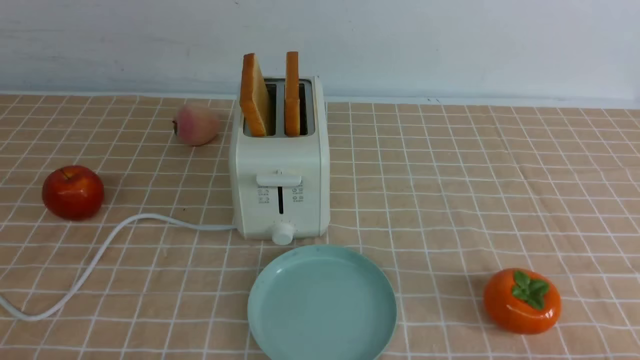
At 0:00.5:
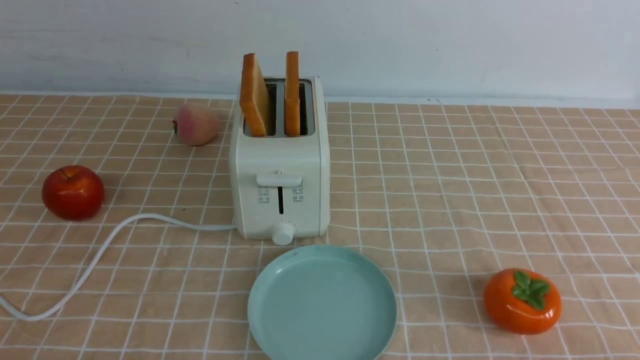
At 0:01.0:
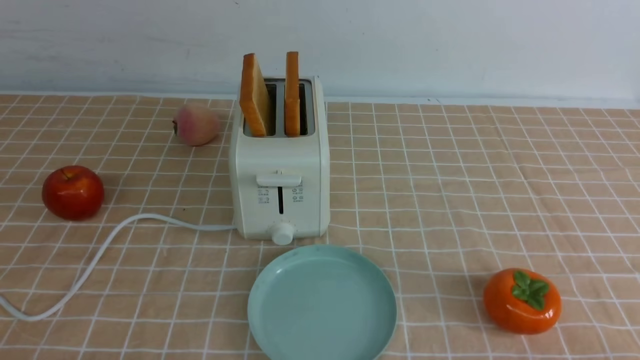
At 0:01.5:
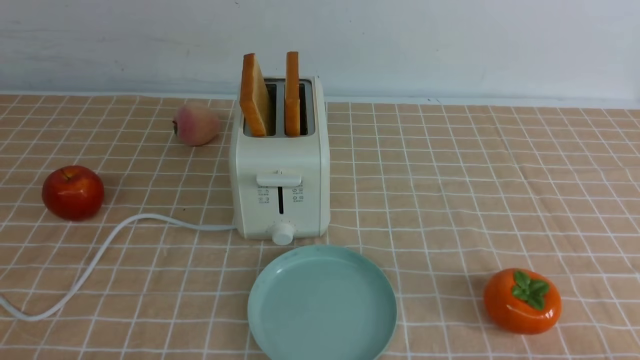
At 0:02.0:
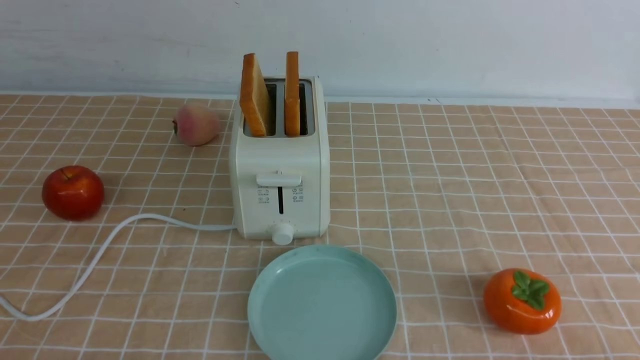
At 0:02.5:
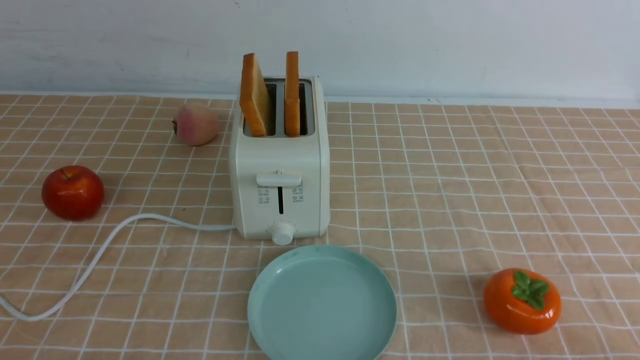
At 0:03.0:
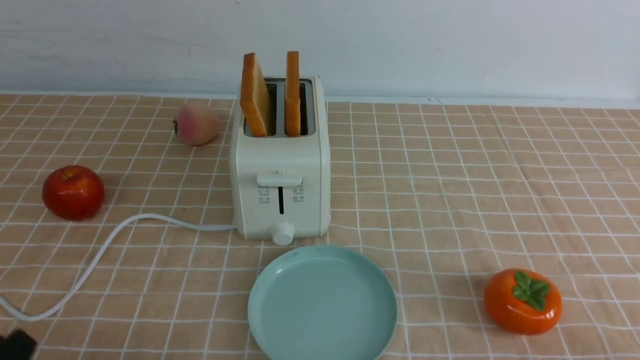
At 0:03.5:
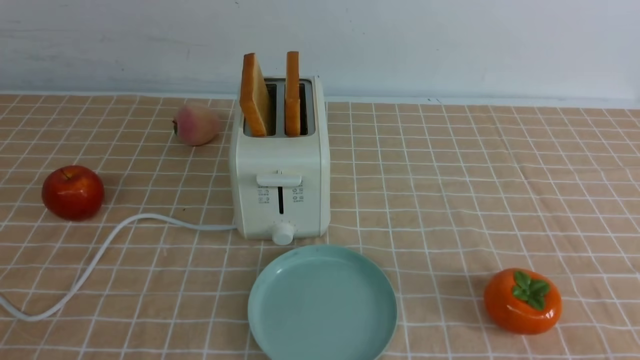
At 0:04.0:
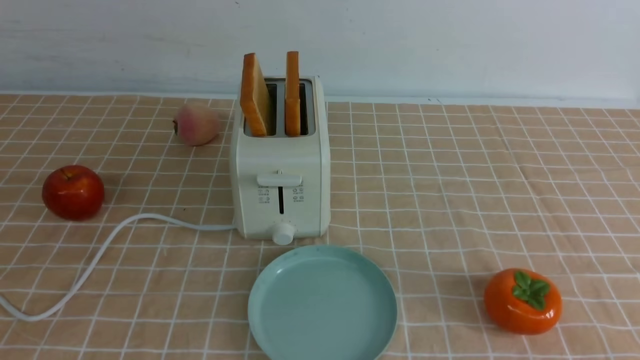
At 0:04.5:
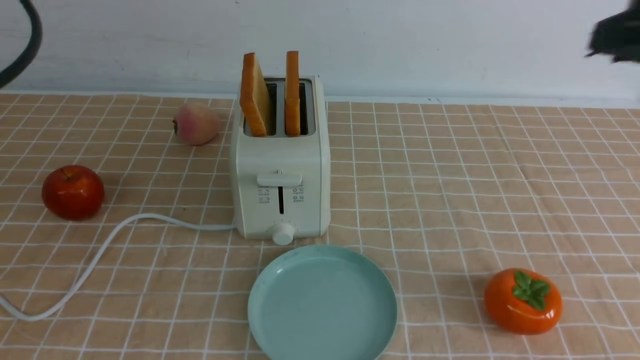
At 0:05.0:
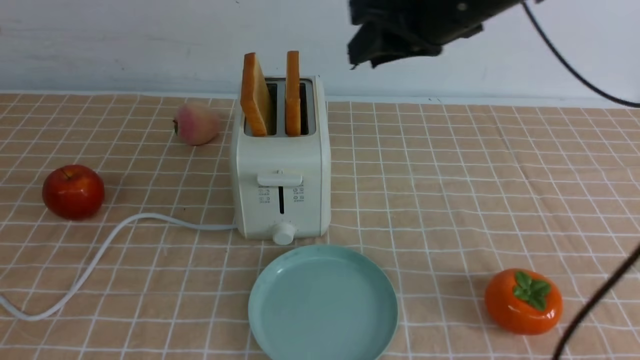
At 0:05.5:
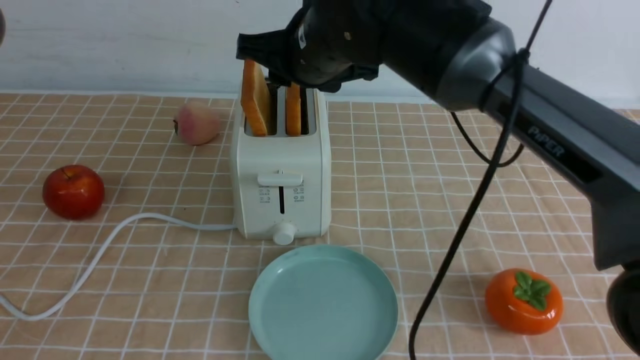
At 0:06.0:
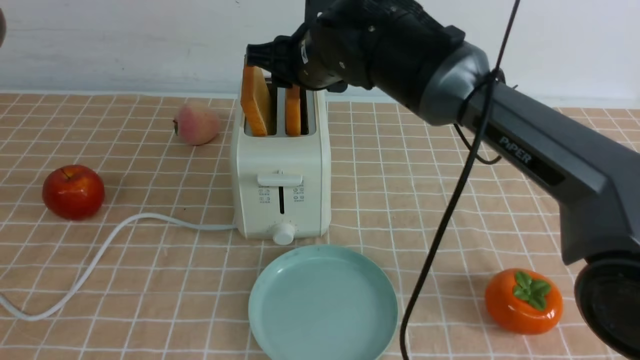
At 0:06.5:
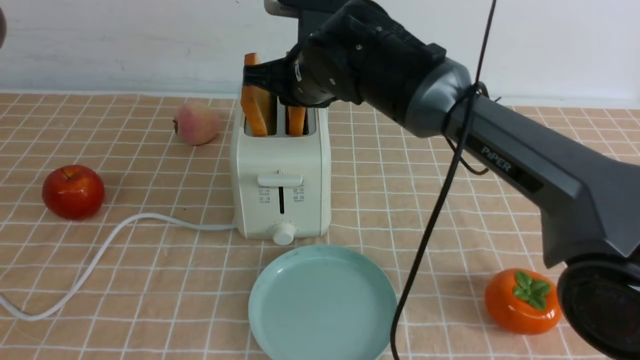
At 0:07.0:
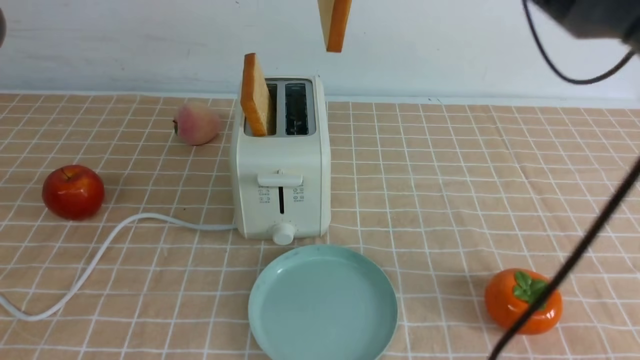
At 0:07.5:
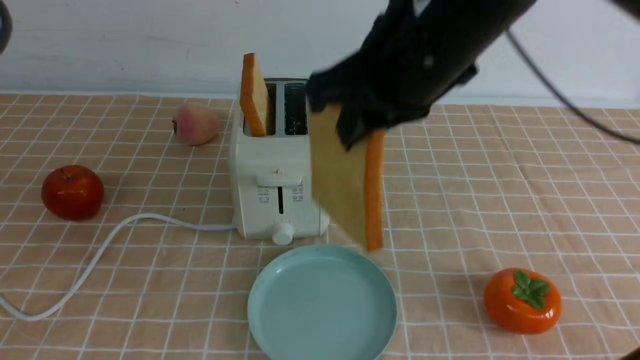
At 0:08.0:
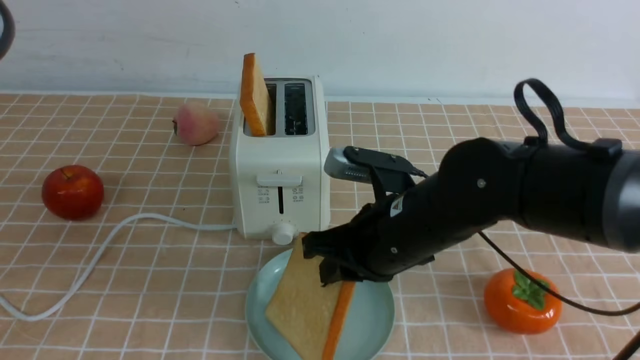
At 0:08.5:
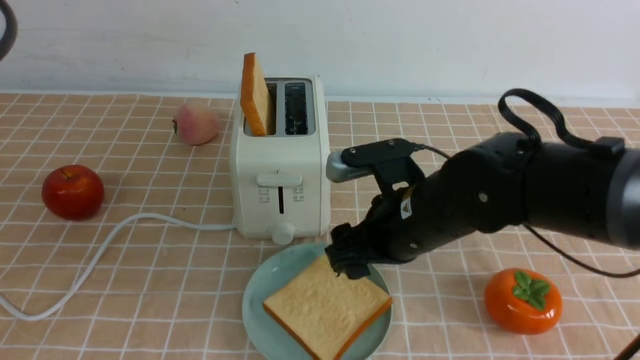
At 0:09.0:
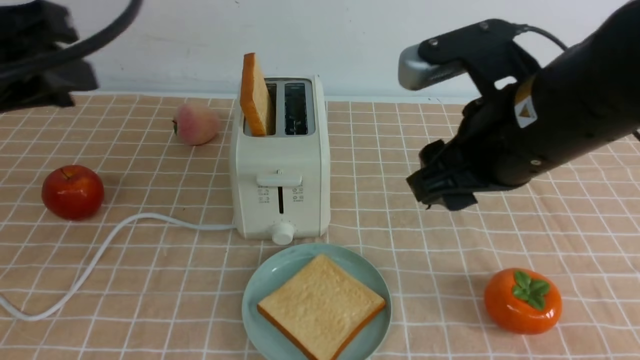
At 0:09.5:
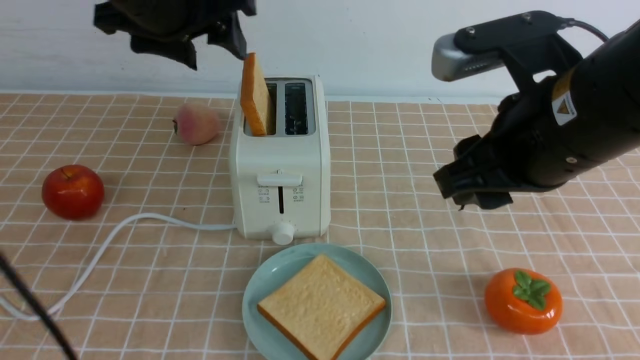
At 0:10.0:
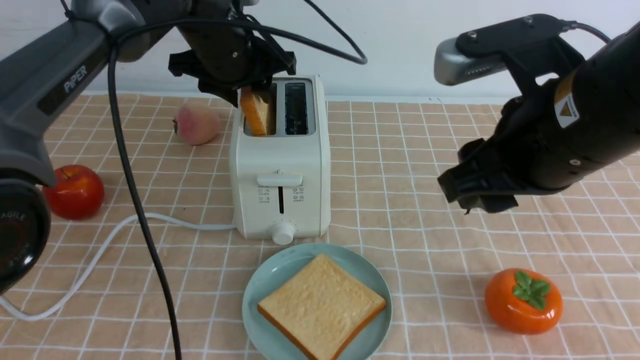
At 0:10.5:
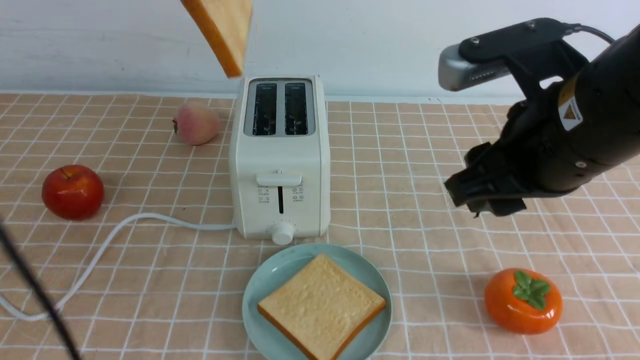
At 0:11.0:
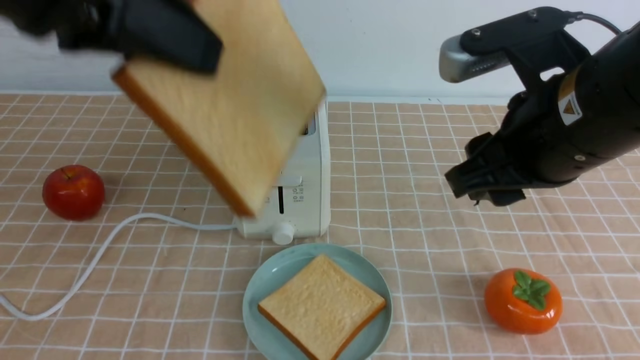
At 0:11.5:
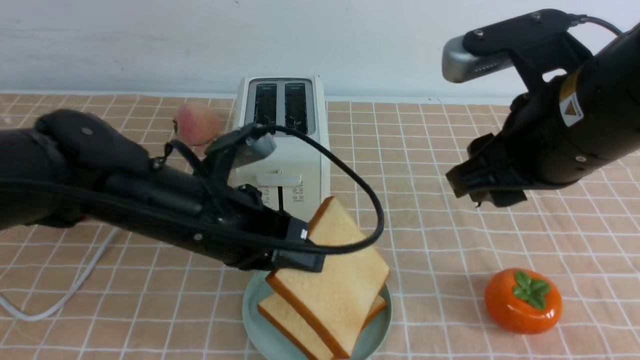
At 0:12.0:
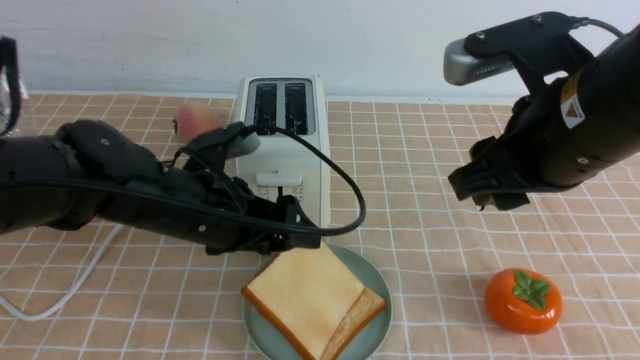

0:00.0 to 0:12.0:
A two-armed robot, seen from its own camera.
Task of the whole recording: take toasted bread from bread machine on light coffee tablecloth place on plate.
Step, 0:00.0 to 0:06.5: use the right arm to take out a slice of bread.
Step, 0:07.0 to 0:08.5: use the right arm to put a slice of bread into the plate.
Step, 0:09.0 to 0:10.0: use the left arm to take out a slice of bread.
0:04.0 to 0:06.0: The left gripper heads forward and downward, covering roughly 10 cm. Meanwhile the right gripper moves to the left, forward and downward, some 50 cm.
0:06.0 to 0:08.0: The right gripper travels backward, downward and to the right by approximately 15 cm, and closes its fingers.
0:08.0 to 0:10.0: The right gripper heads upward and to the right, covering roughly 15 cm, and opens up; the left gripper goes about 30 cm forward and to the right.
0:10.0 to 0:12.0: The left gripper shifts roughly 20 cm backward and downward, and closes and opens again.

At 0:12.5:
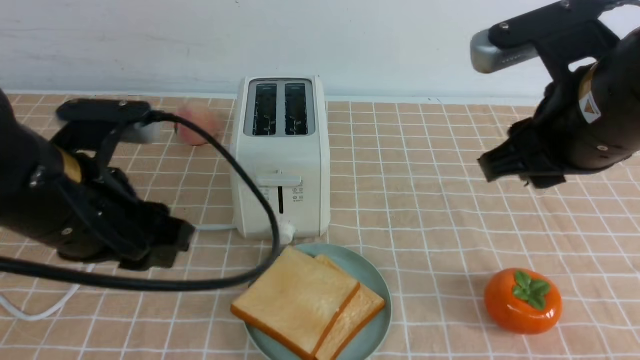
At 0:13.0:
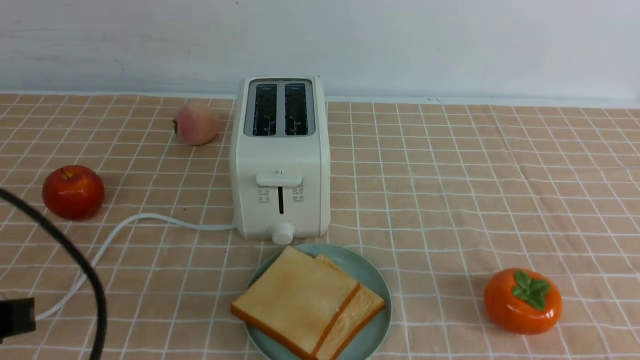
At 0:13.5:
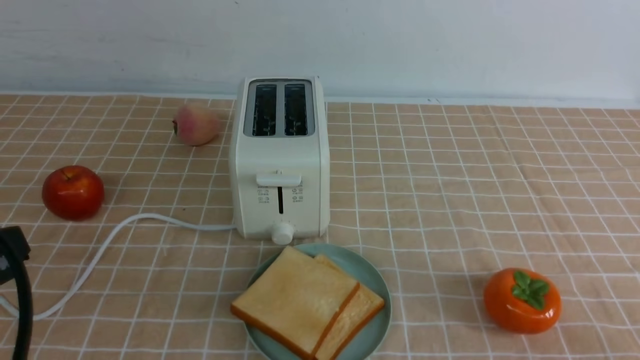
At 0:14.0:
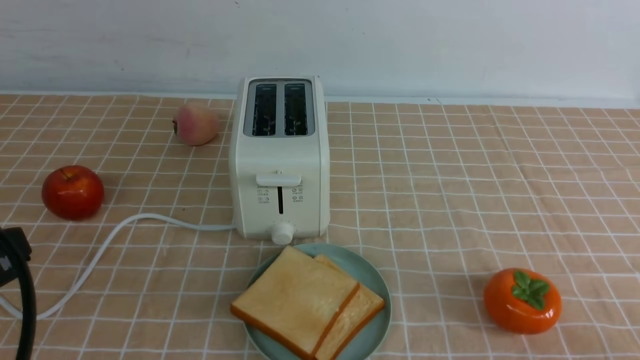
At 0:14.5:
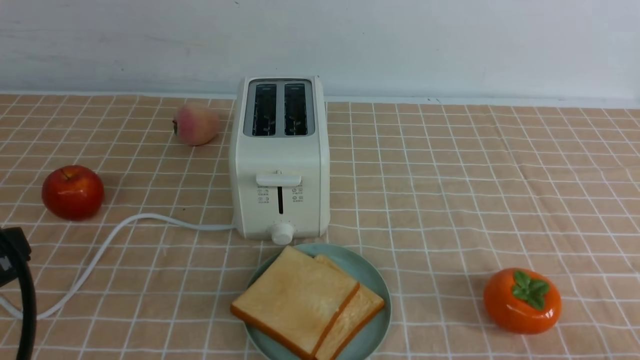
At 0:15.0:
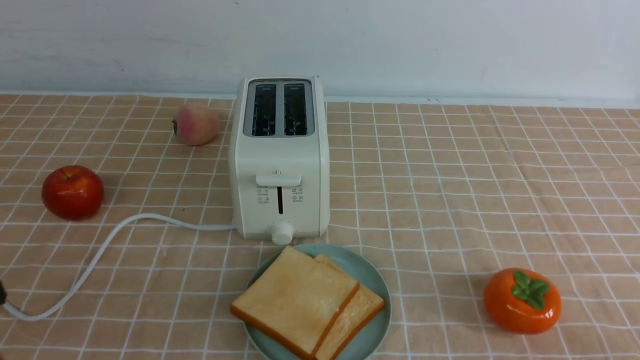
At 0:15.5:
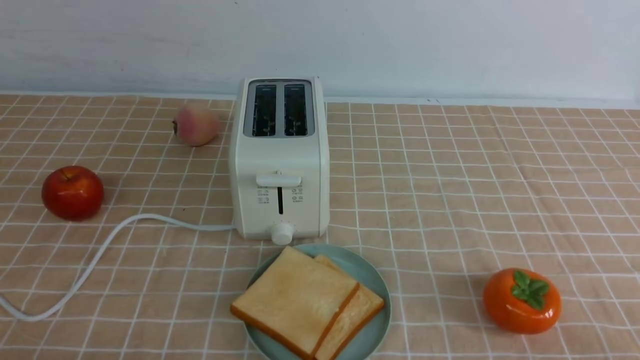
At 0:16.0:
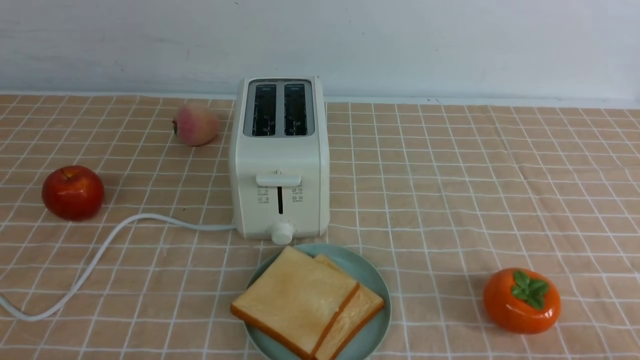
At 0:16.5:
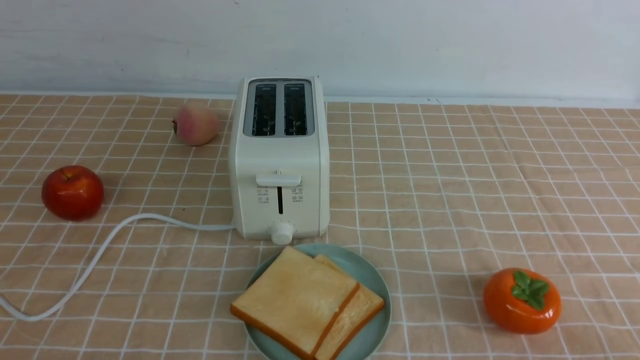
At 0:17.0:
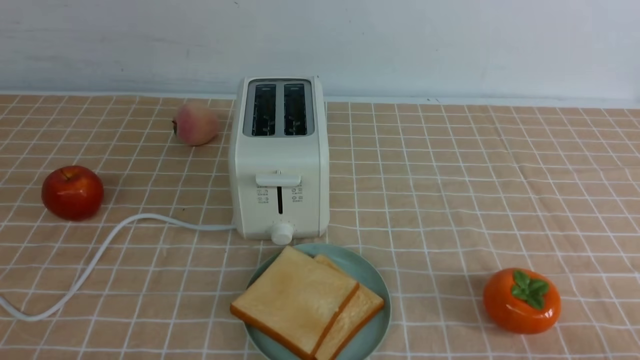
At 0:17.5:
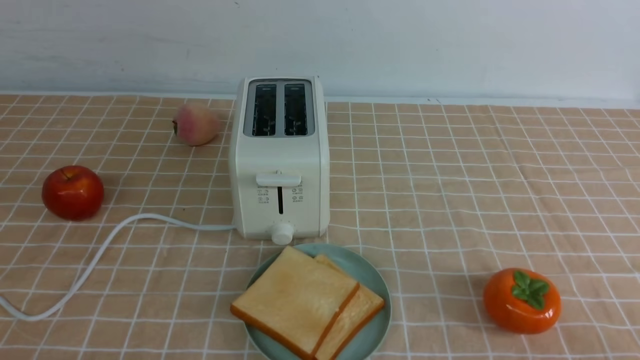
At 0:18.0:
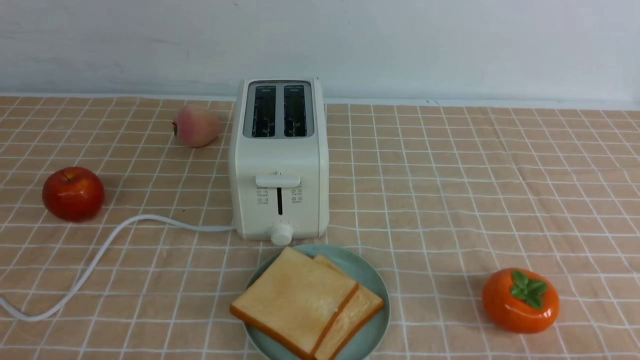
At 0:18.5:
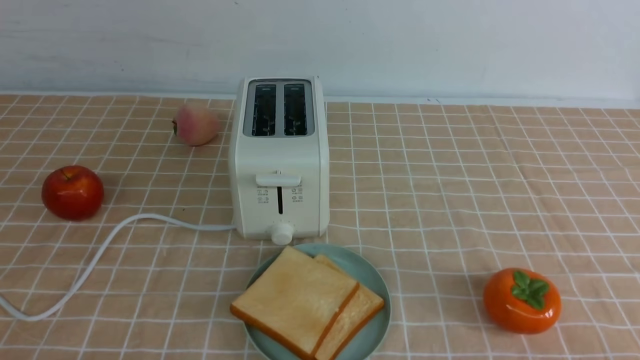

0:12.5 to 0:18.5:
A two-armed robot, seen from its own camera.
Task of the whole recording: take toasted bread from bread machine on light coffee tablecloth place on plate.
0:12.5 to 0:14.5: The right gripper moves backward, to the right and downward, about 25 cm, and closes its fingers; the left gripper travels backward and to the left by roughly 15 cm, and closes its fingers.
0:14.5 to 0:16.5: The left gripper shifts approximately 15 cm downward.
